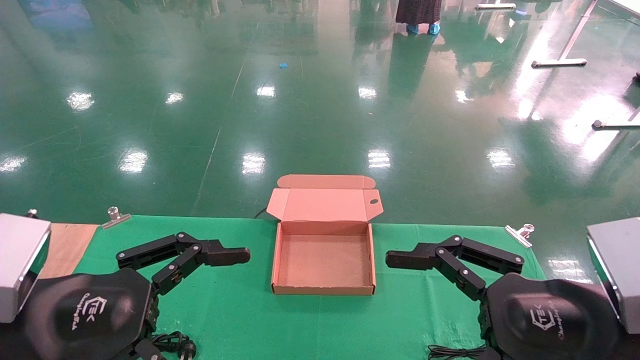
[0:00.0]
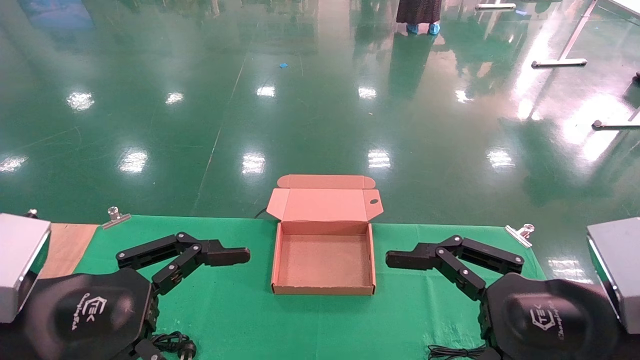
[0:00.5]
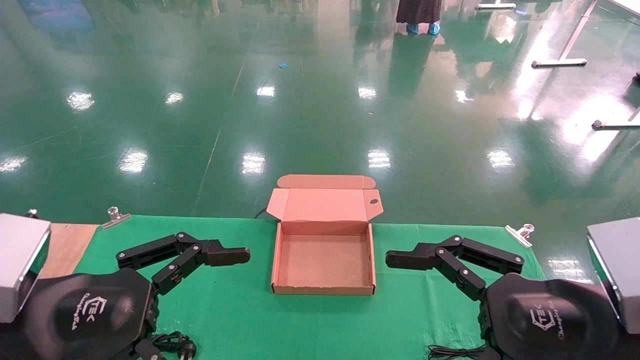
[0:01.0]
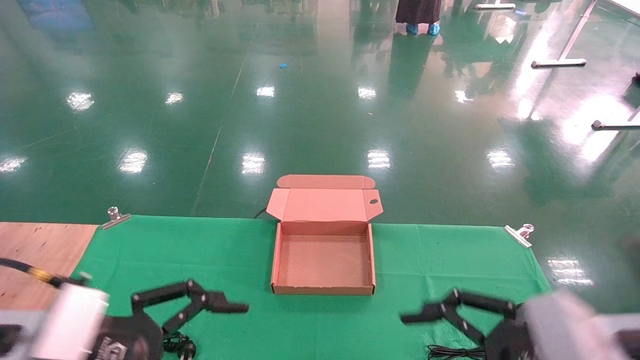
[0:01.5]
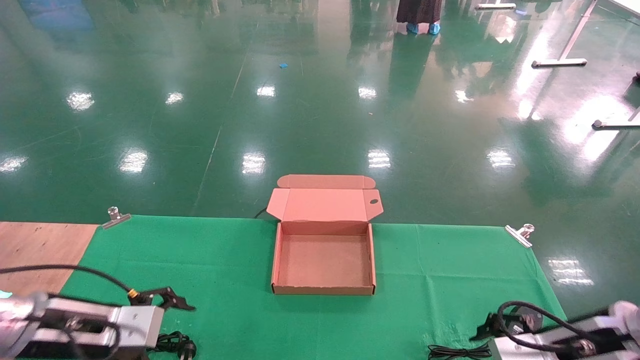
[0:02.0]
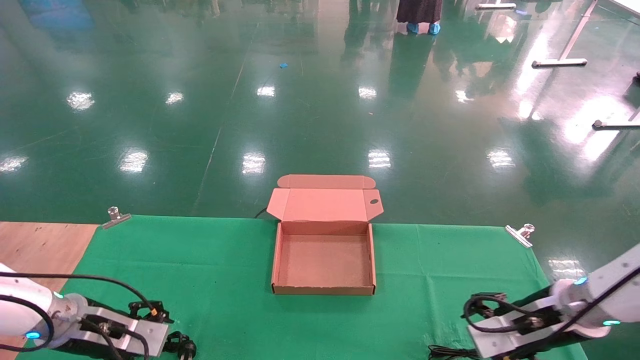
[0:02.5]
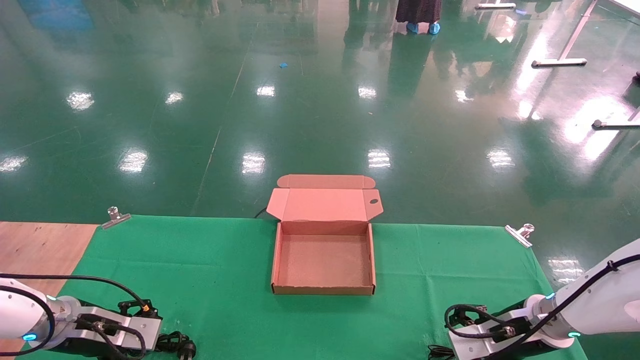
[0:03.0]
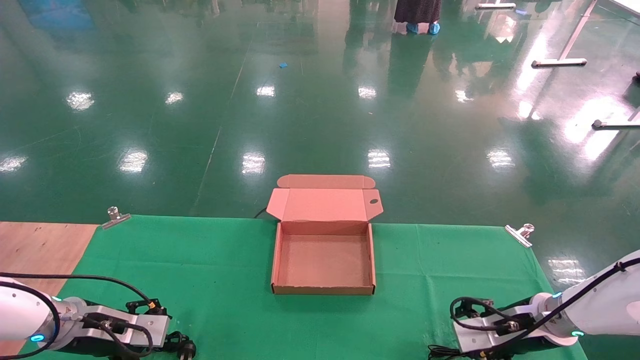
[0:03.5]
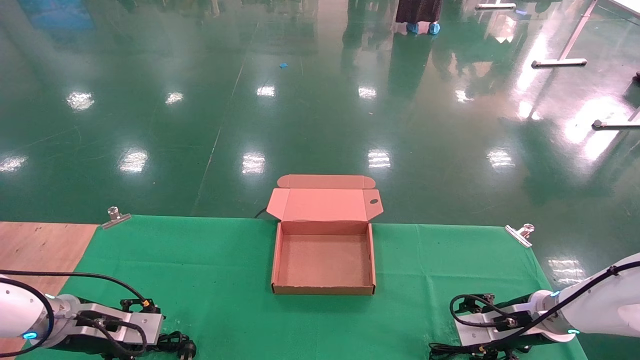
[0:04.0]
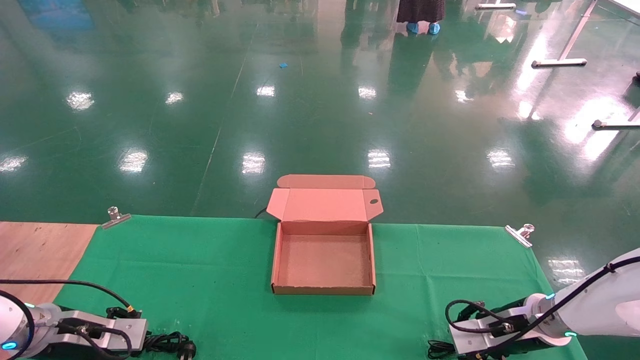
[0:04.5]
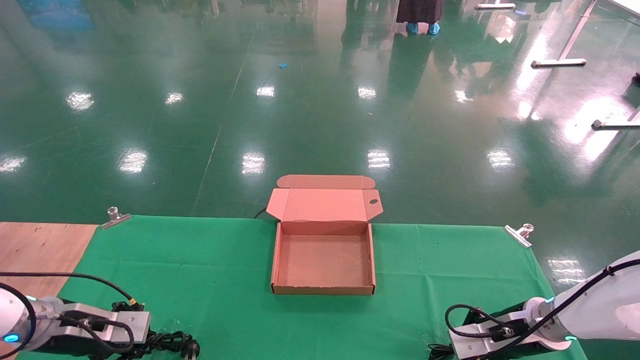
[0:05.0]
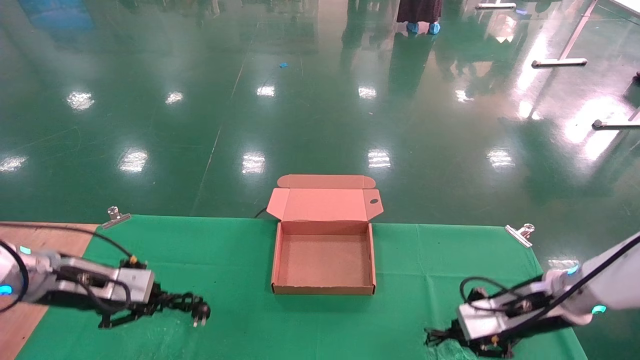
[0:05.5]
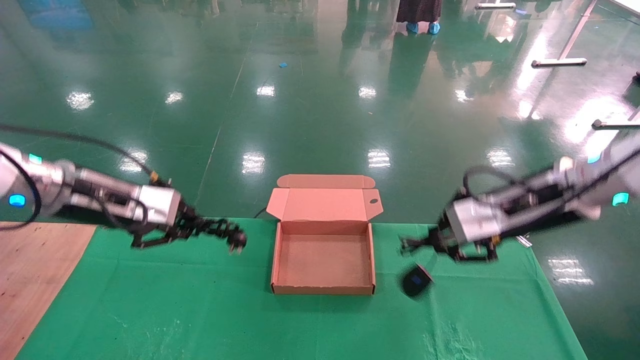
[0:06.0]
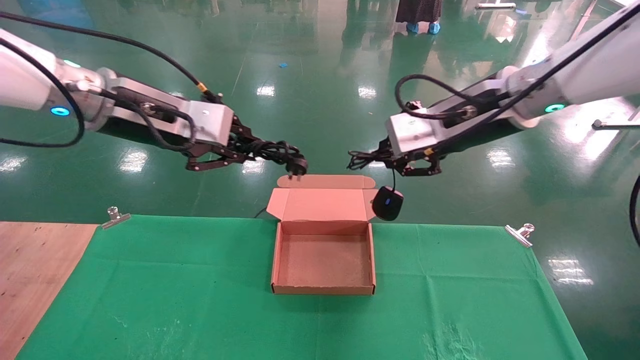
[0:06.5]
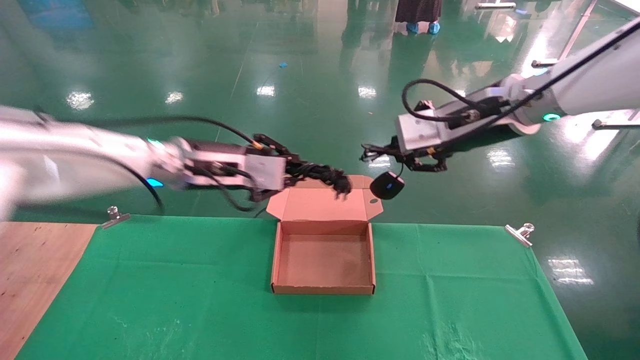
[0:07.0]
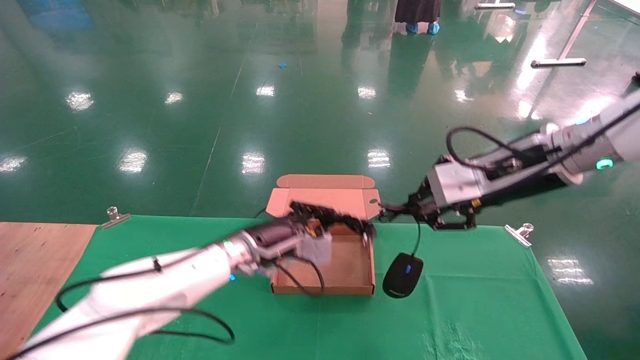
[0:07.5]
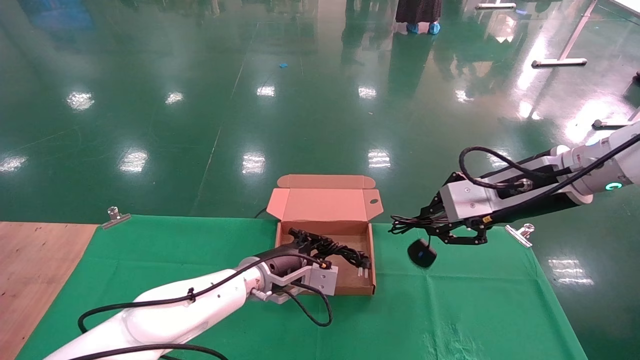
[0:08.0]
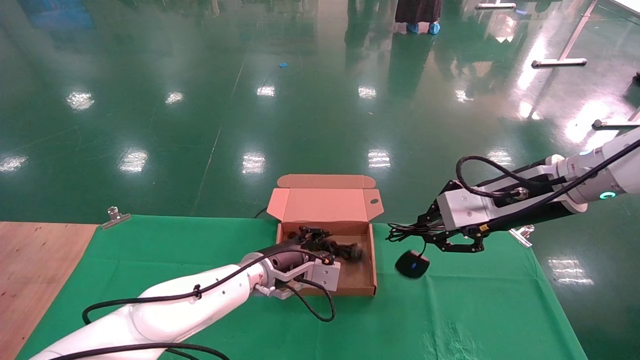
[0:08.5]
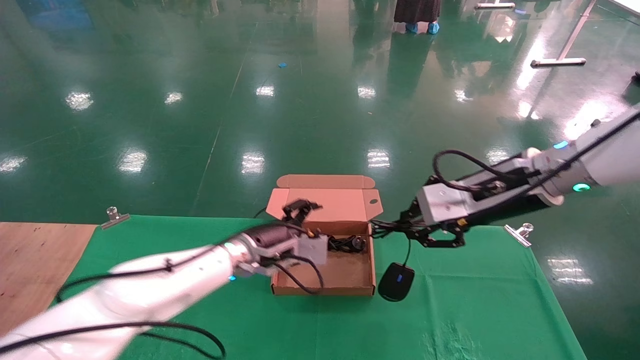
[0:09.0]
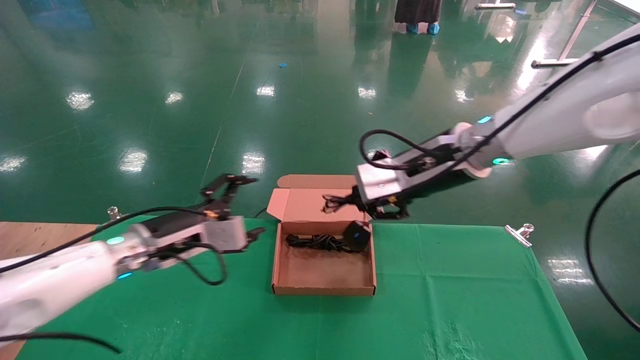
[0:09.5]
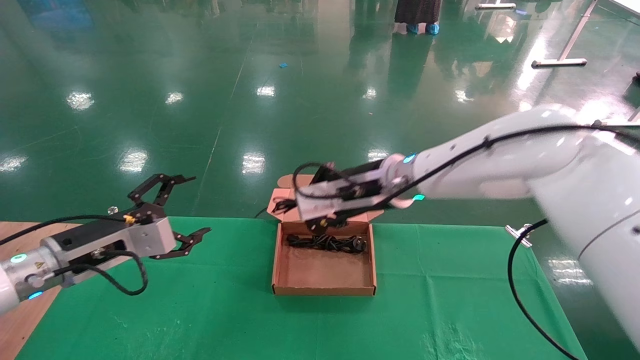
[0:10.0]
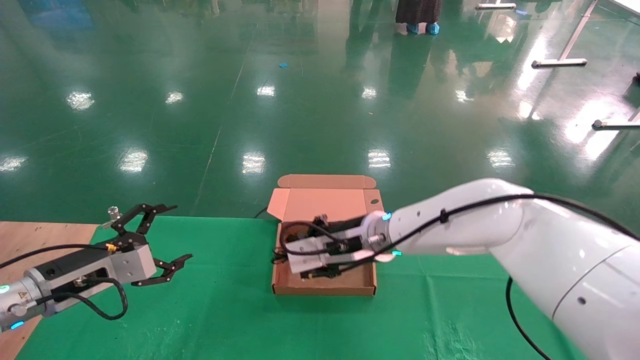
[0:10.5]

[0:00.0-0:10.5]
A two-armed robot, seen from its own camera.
Step, 0:02.5 to 0:05.5: Grab and lift both the mouse and power cord from the accessory packaging area at the same time.
0:00.0 to 0:02.0: The left gripper shifts approximately 20 cm forward, downward and to the left. The right gripper moves forward and downward, about 15 cm.
0:02.0 to 0:04.0: The left gripper moves forward, downward and to the left, roughly 10 cm, while the right gripper moves forward and downward, roughly 15 cm.
0:04.0 to 0:06.5: The left gripper moves upward and to the right, about 35 cm, and closes up. Meanwhile the right gripper travels upward by some 30 cm, and closes its fingers.
0:06.5 to 0:08.5: The right gripper moves downward and to the right, roughly 10 cm. Meanwhile the left gripper goes roughly 30 cm downward and to the right.
0:08.5 to 0:10.5: The left gripper moves to the left, approximately 30 cm, and opens up, while the right gripper is displaced to the left and downward by some 20 cm.

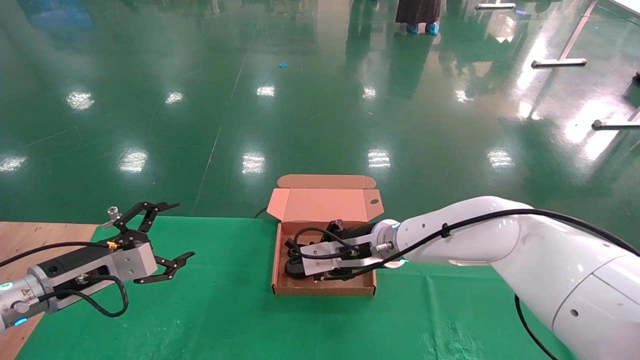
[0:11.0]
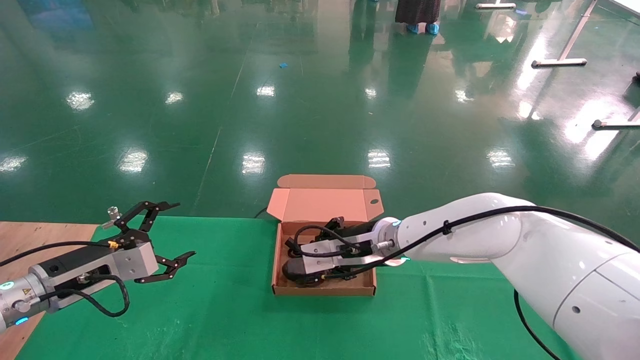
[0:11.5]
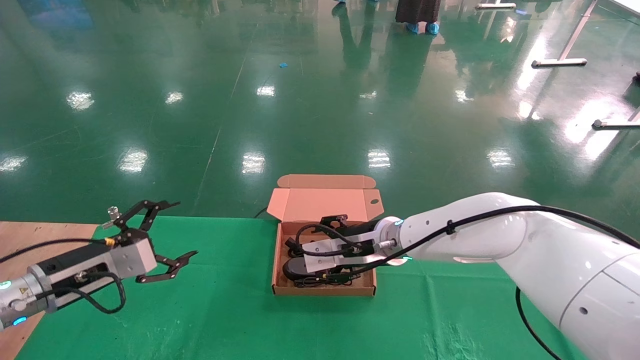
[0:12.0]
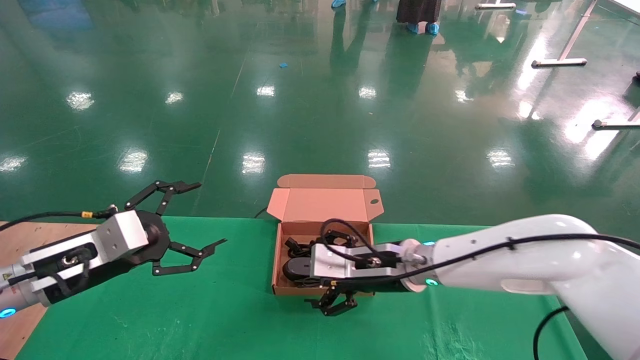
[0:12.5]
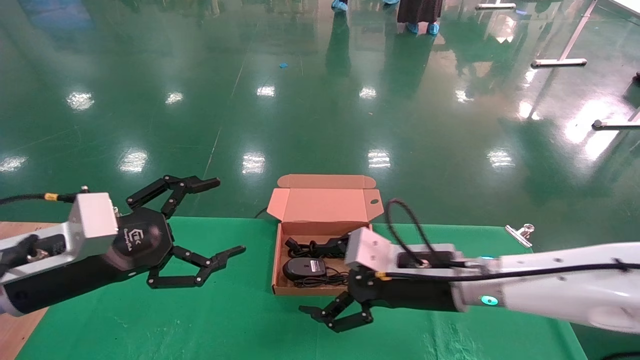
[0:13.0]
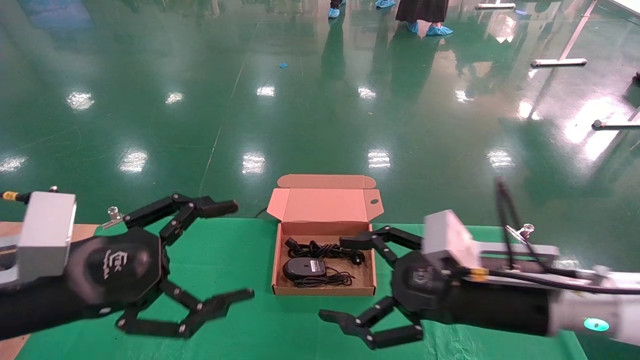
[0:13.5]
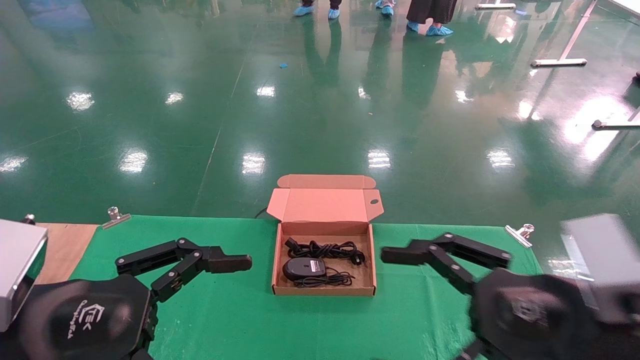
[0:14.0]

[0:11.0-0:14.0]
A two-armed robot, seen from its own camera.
0:11.0 to 0:12.5: The right gripper ends up approximately 5 cm from where it was, and opens up. Meanwhile the left gripper ends up roughly 10 cm from where it was.
0:12.5 to 0:14.0: The right gripper heads backward and to the right, covering some 25 cm. Meanwhile the left gripper shifts roughly 15 cm backward and to the right.
